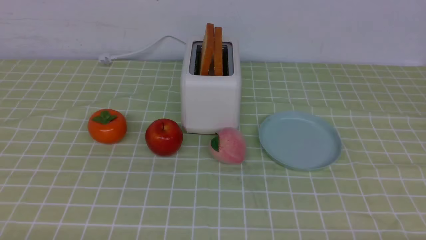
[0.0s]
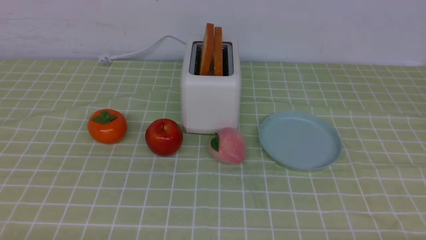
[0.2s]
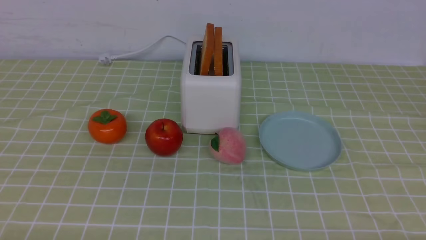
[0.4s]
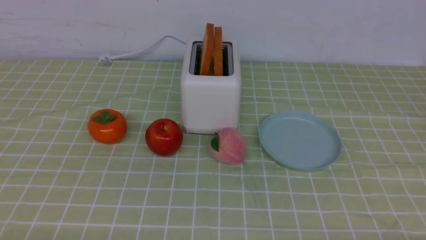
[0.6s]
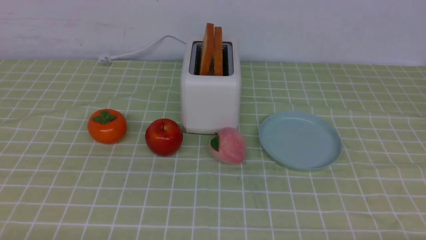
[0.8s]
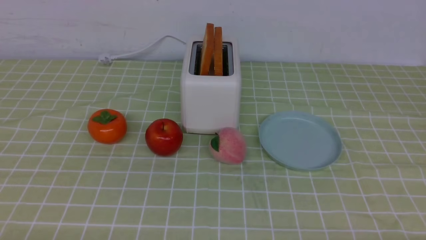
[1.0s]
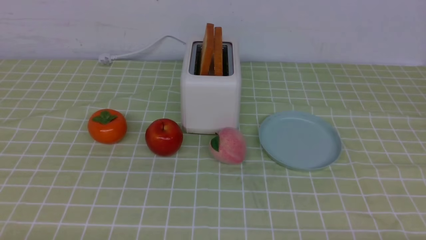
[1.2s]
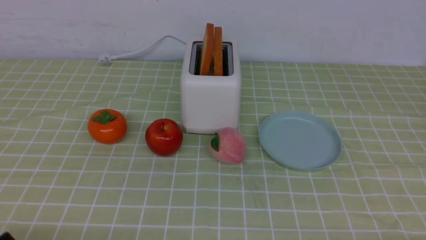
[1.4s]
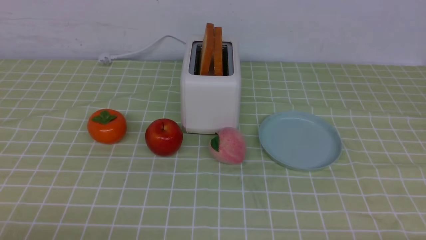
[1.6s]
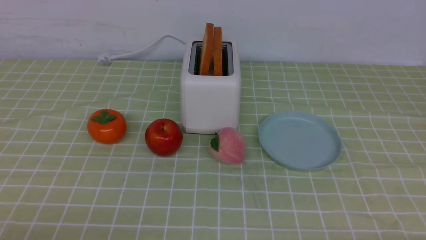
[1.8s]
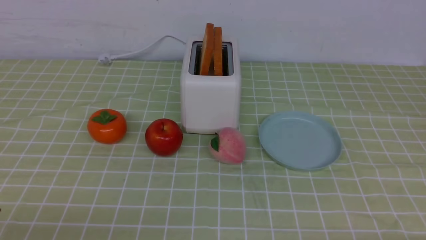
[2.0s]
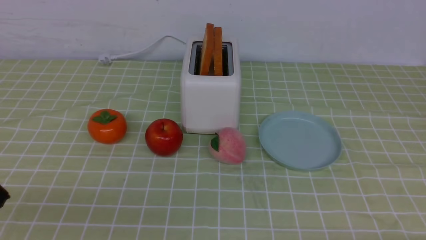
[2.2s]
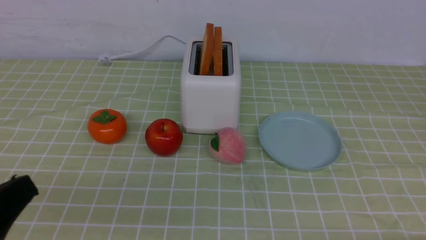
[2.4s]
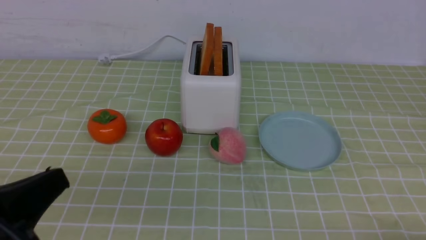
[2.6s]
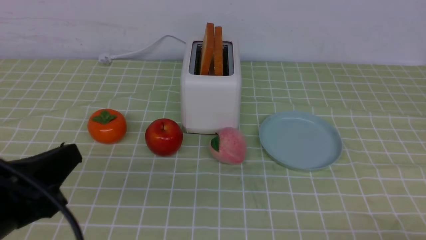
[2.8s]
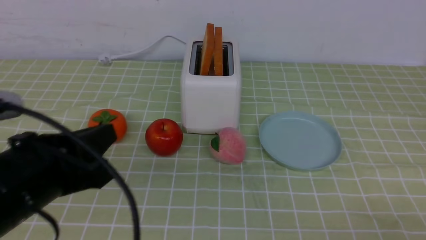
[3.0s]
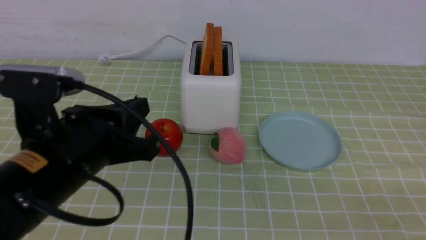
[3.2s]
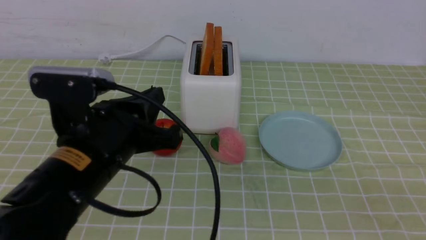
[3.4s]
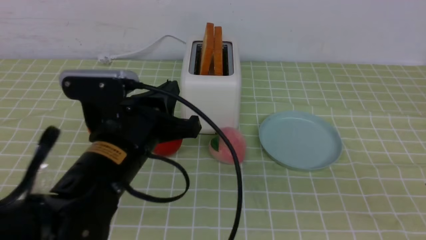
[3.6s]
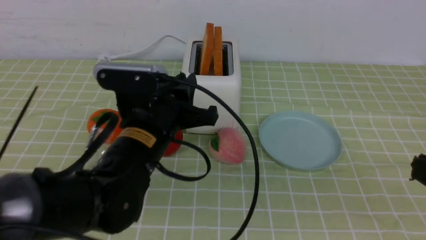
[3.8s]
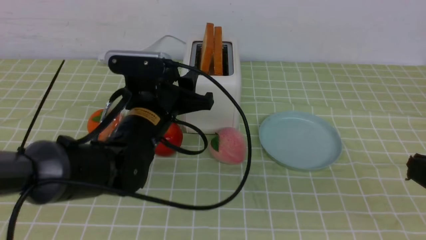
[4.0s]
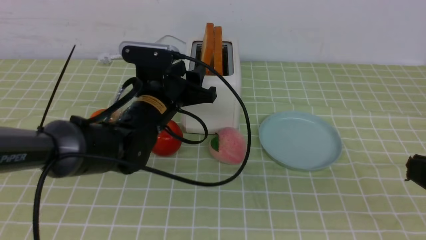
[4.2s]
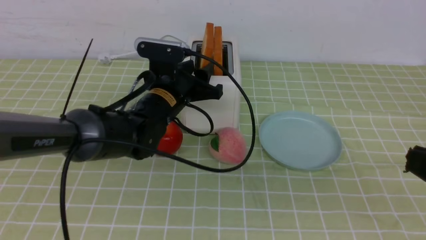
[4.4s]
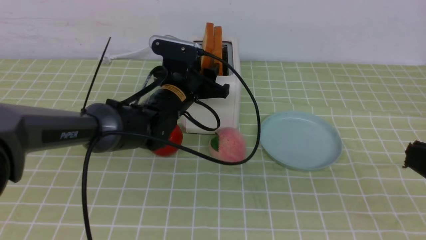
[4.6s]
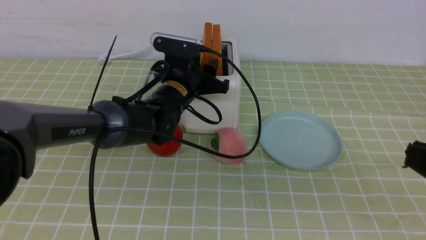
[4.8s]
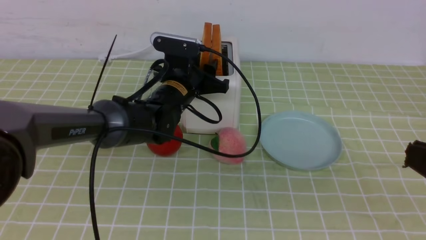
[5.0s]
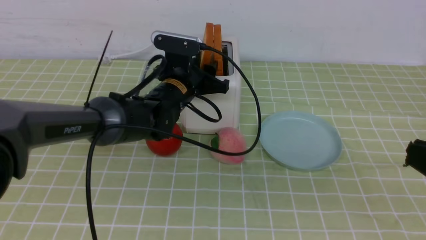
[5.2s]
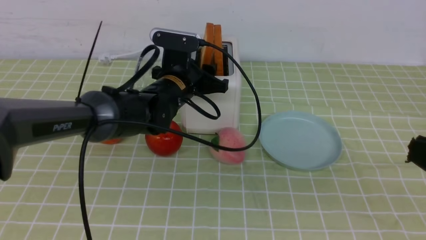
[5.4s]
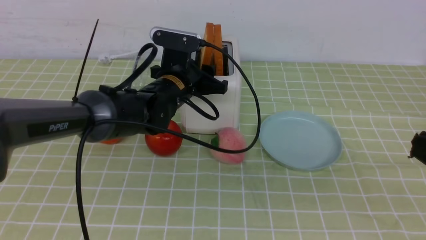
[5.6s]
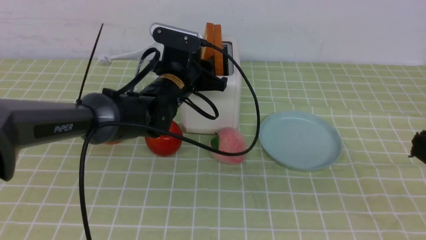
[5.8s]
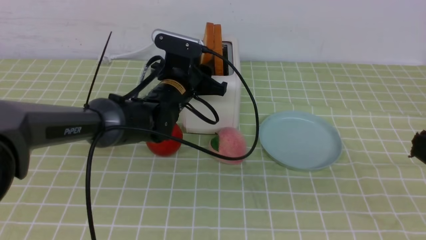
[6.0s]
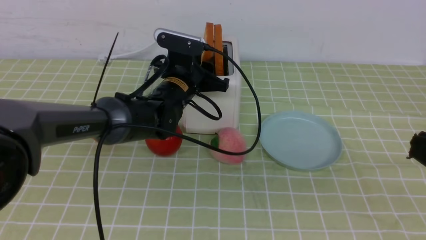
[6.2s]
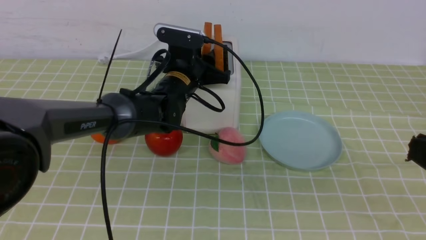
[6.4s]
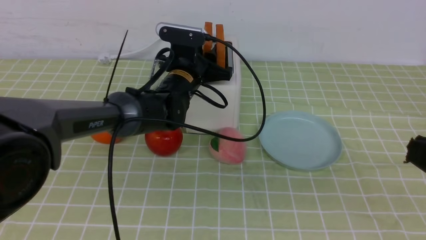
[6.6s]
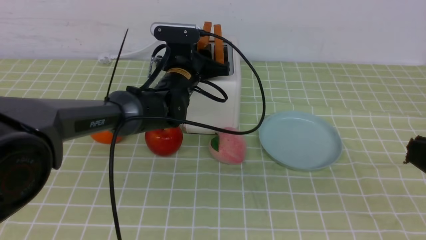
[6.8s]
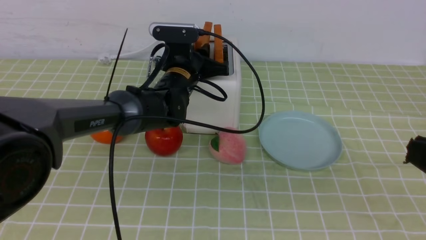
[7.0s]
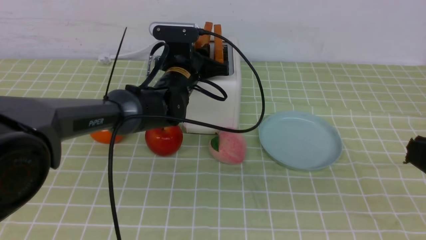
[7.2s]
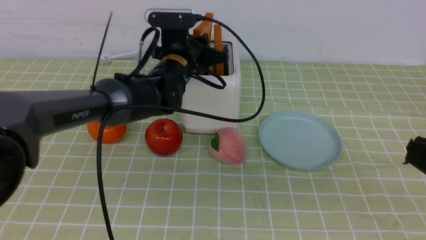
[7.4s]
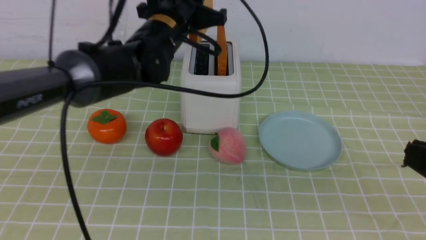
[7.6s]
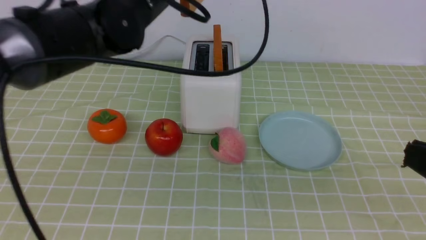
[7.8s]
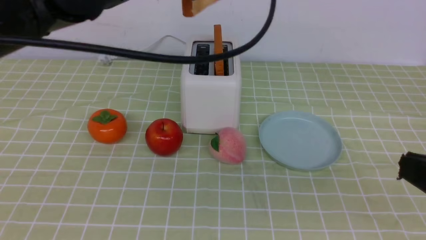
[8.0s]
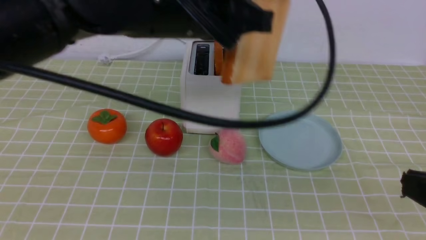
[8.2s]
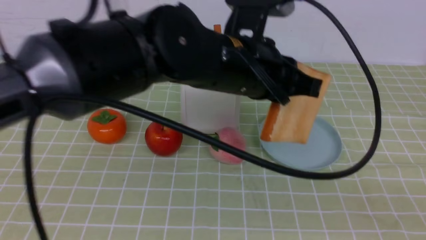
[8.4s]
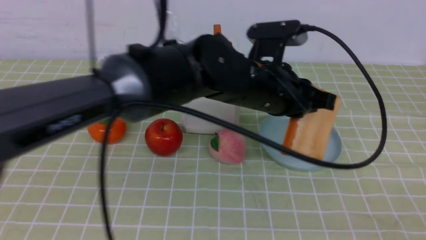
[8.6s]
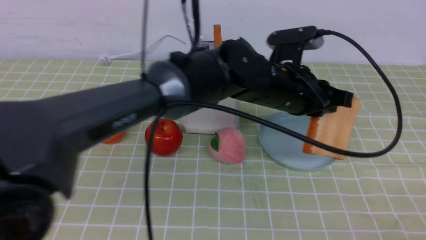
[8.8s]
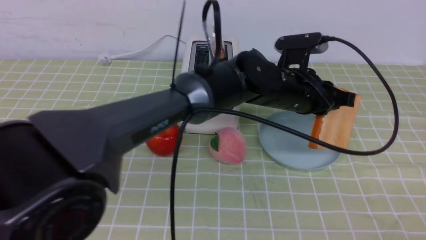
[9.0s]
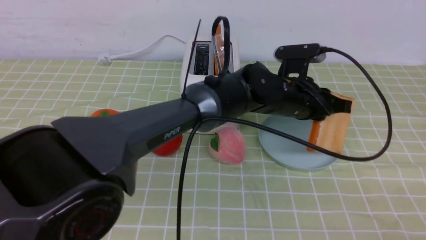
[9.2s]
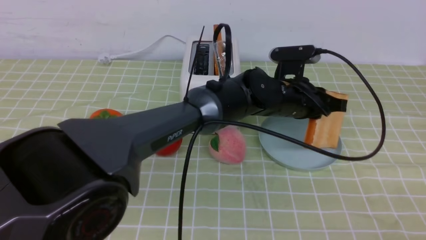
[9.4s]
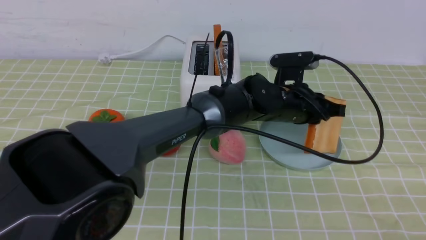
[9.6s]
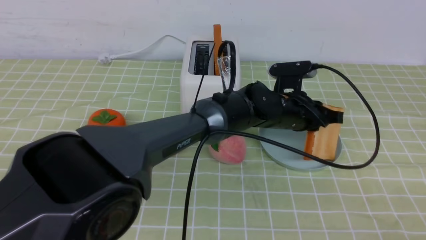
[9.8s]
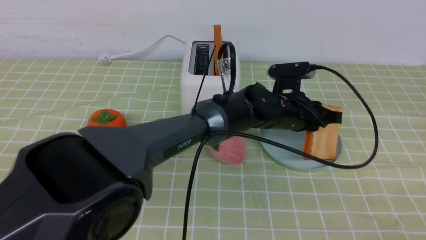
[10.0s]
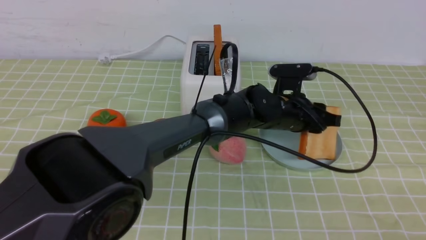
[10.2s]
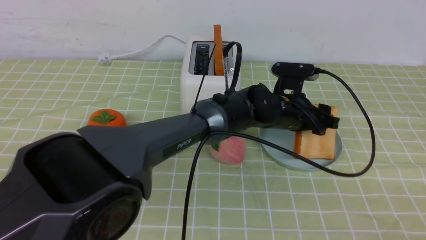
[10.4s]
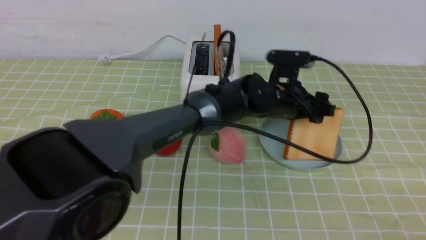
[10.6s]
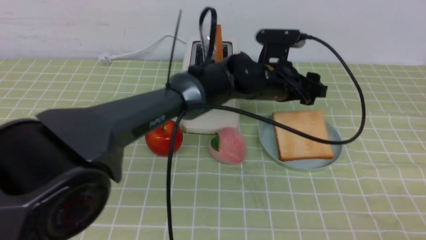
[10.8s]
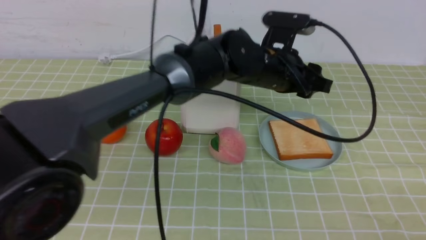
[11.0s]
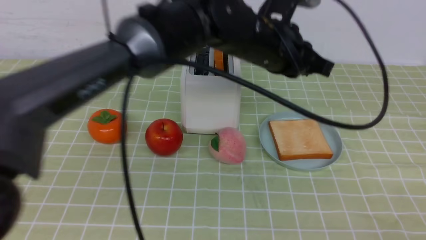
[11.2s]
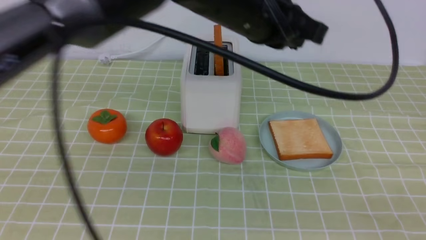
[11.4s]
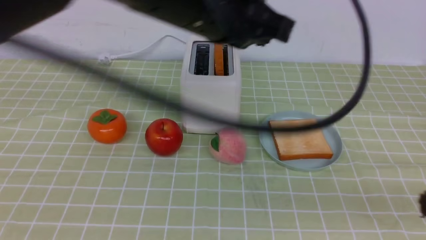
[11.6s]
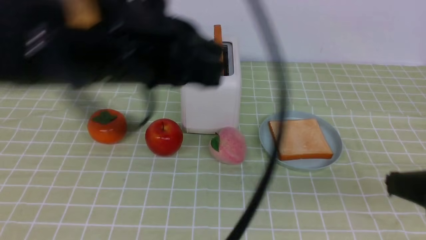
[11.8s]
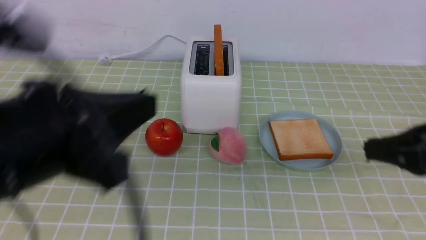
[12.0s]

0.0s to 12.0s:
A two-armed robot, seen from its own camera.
Task of the whole recording: take toasted bread from bread machine on green coffee tablecloth place on plate.
Step, 0.0s to 7.6s: use the left arm to take out a slice of bread.
Step, 7.8s to 11.0s: use the left arm to put a slice of bread into the empty plate.
1.6s to 3.0s: The left gripper goes roughly 15 cm upward, forward and to the right, and closes.
3.0s to 4.4s: The right gripper moves upward, roughly 10 cm, while the left gripper goes some 25 cm forward and to the right, and opens.
4.4s to 6.0s: There are only small adjustments of the grippers.
6.0s to 7.6s: The left gripper shifts roughly 10 cm upward, and closes up.
7.6s to 9.0s: The right gripper goes some 10 cm backward. Meanwhile the left gripper travels to the right and downward by approximately 20 cm.
9.0s to 10.4s: The left gripper travels downward by approximately 5 cm, and opens.
10.4s to 12.0s: The right gripper travels forward by roughly 20 cm. Meanwhile the left gripper shifts roughly 40 cm backward, to the left and upward, and closes up.

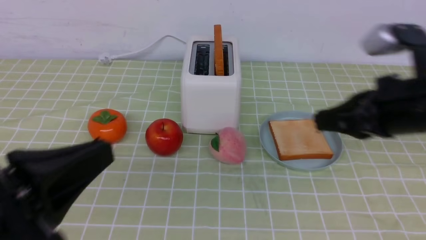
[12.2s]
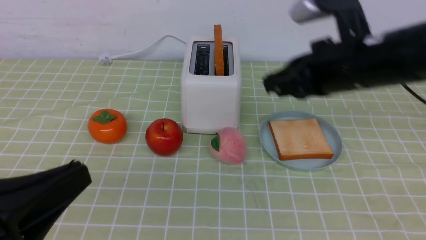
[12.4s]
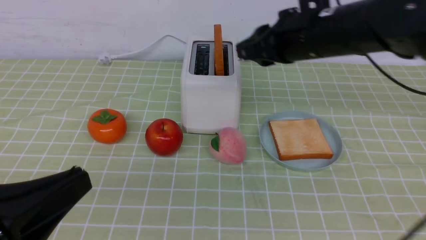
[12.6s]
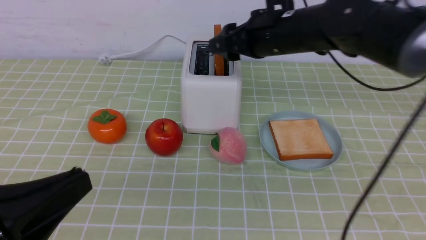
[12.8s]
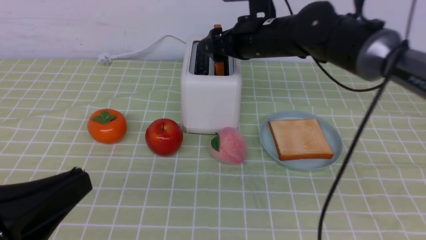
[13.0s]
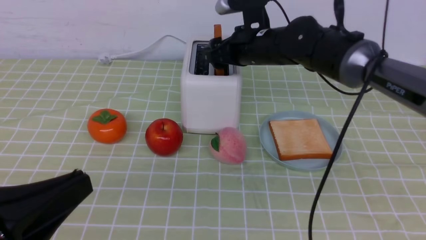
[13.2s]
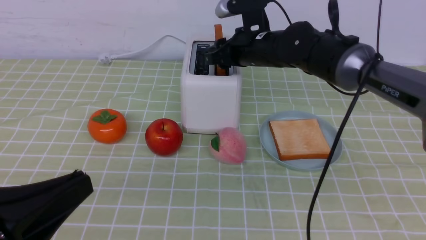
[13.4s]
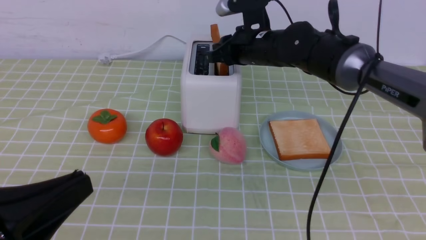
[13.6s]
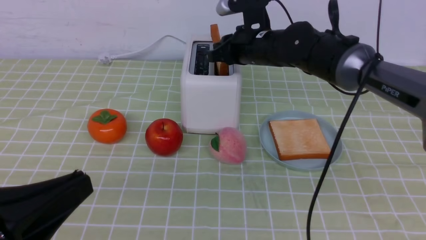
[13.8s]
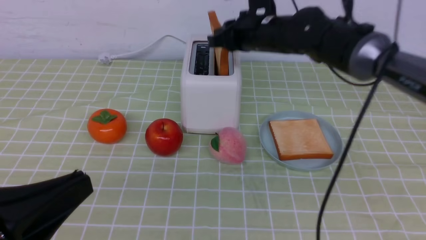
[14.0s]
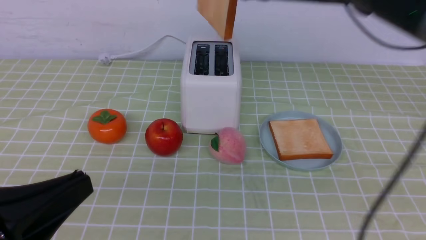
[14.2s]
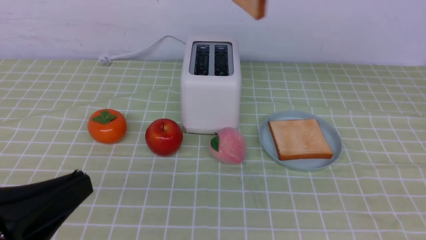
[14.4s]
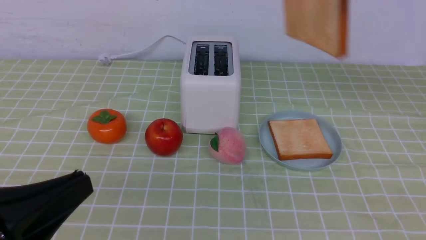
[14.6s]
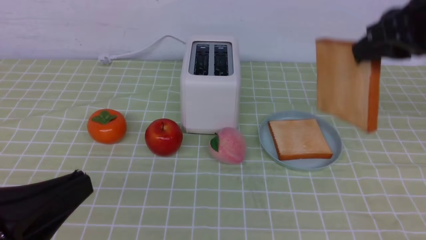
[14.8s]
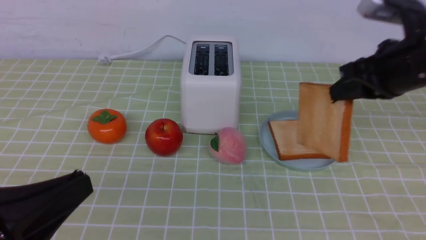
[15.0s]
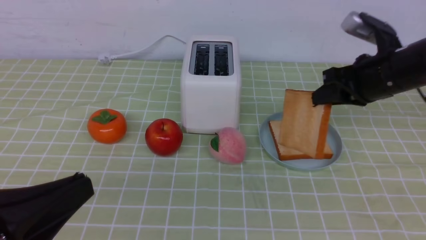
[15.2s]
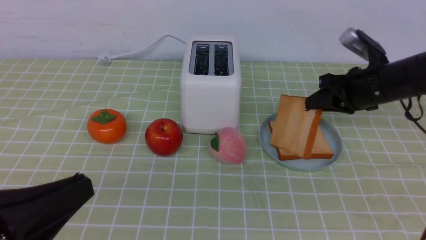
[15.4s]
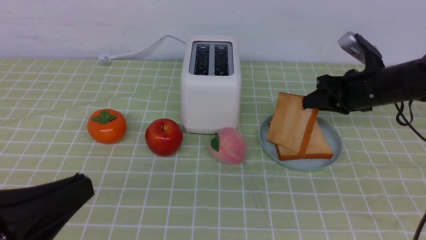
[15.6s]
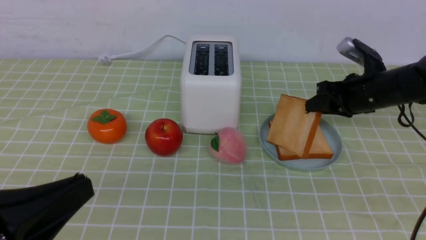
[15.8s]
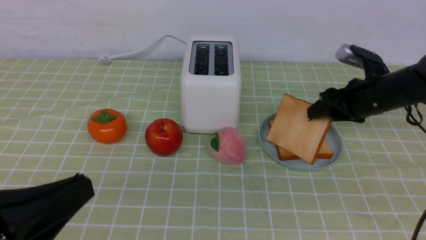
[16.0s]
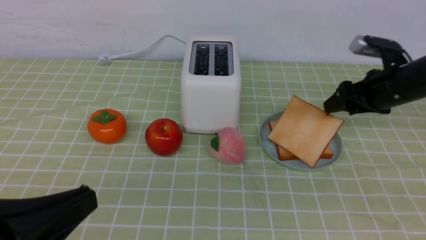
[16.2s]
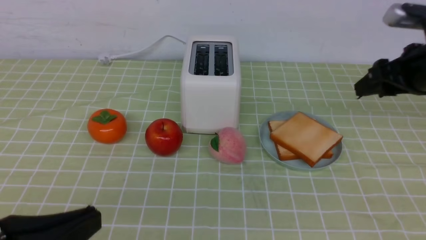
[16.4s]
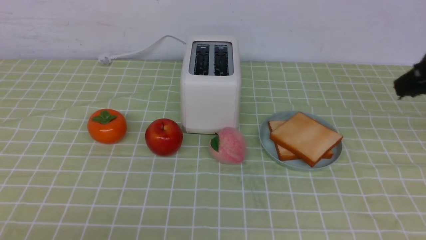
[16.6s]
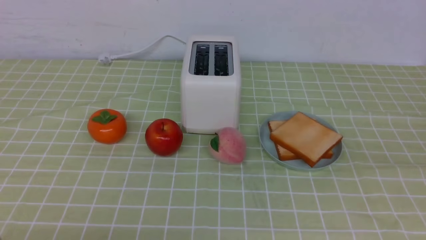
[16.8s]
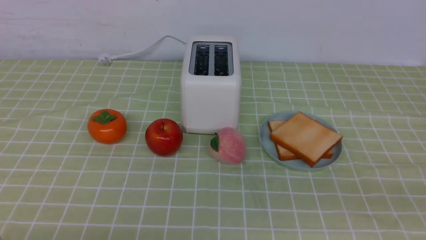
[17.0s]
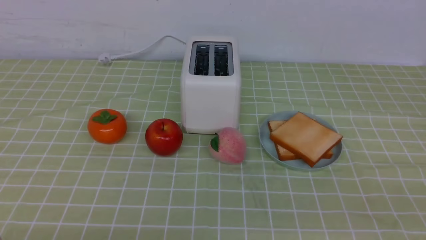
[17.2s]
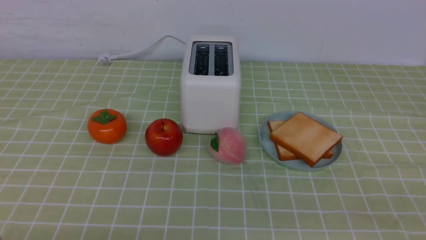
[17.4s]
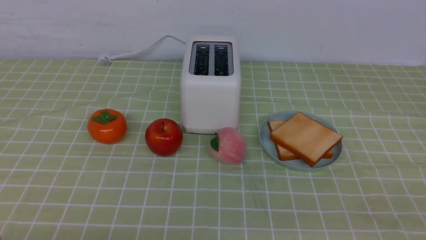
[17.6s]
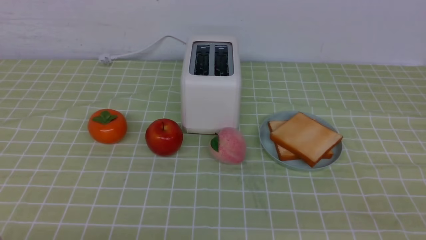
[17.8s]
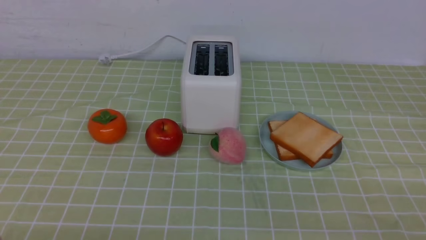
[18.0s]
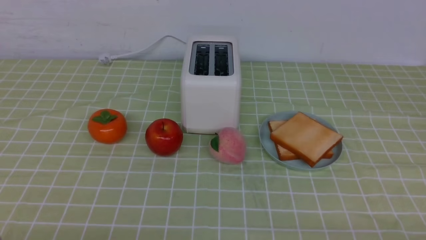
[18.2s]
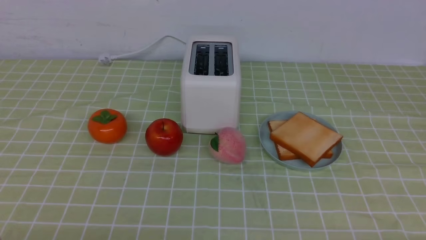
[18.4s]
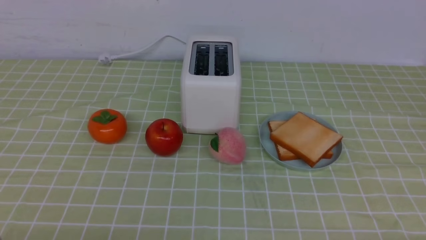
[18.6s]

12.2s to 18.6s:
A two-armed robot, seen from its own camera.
Task of the whole recording: take toasted bread from bread machine on green coffee tablecloth place on plate.
Step, 12.2s to 14.2s: use the right arm to take out a slice of bread.
Step, 14.4s to 16.4s: use the right arm to put a slice of bread into the plate.
12.2s to 13.8s: The right gripper is displaced forward and to the left by approximately 25 cm, and opens, then closes once more.
13.8s to 15.4s: The right gripper moves to the right and backward, some 20 cm, and travels upward and back again, approximately 15 cm each way.
15.4s to 17.0s: The right gripper travels backward by approximately 30 cm, and opens, then closes again.
